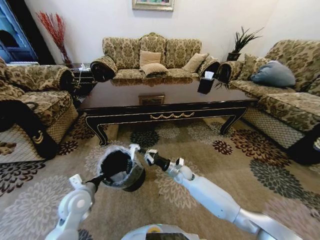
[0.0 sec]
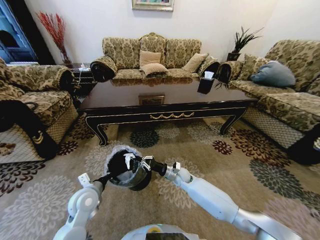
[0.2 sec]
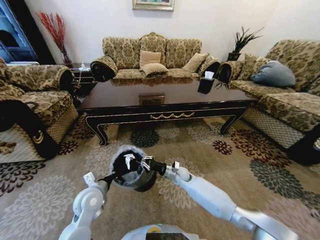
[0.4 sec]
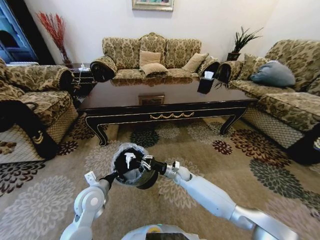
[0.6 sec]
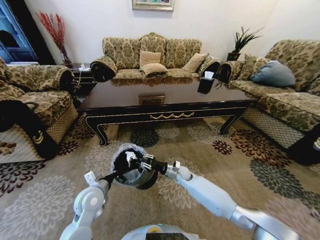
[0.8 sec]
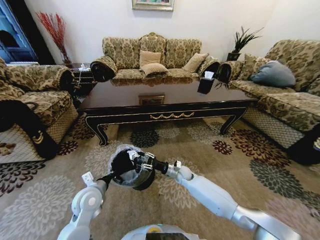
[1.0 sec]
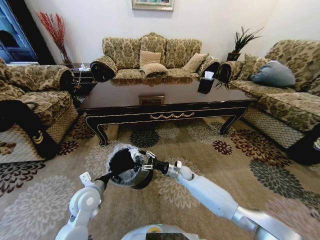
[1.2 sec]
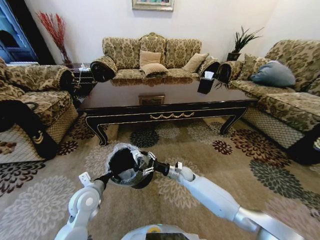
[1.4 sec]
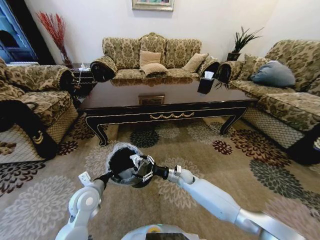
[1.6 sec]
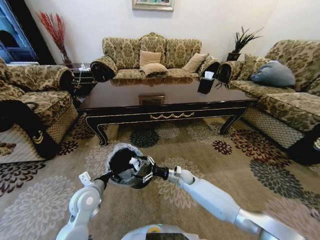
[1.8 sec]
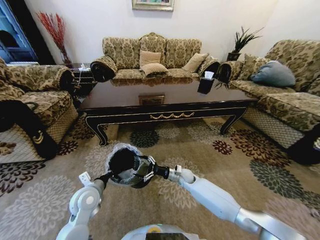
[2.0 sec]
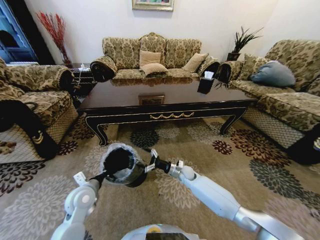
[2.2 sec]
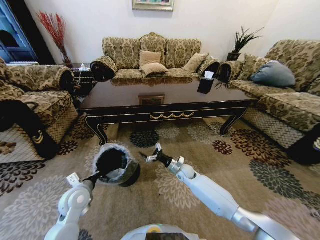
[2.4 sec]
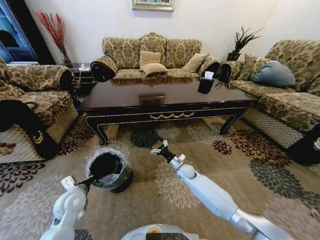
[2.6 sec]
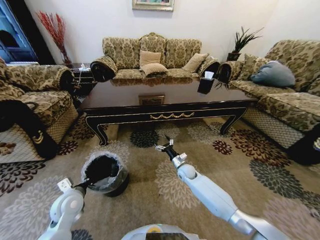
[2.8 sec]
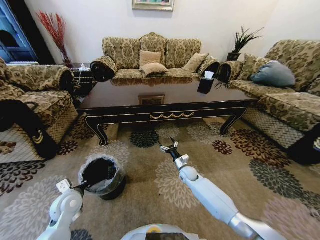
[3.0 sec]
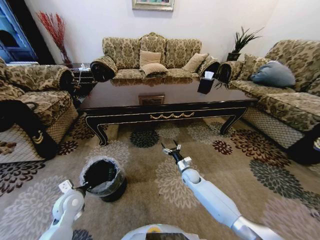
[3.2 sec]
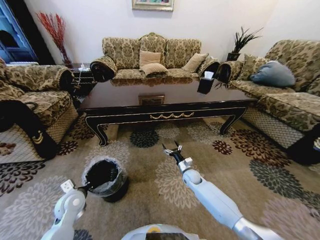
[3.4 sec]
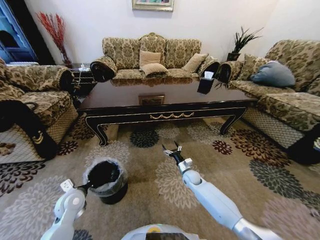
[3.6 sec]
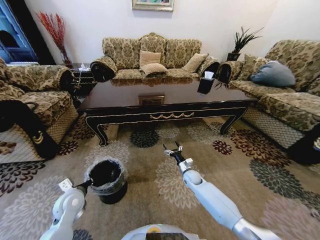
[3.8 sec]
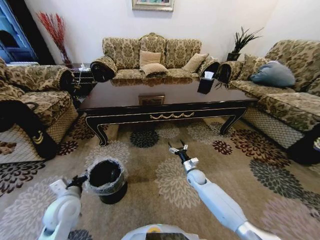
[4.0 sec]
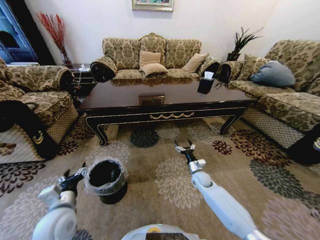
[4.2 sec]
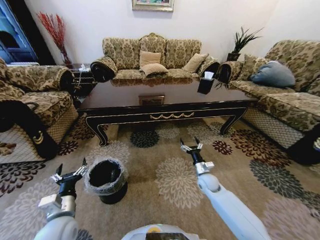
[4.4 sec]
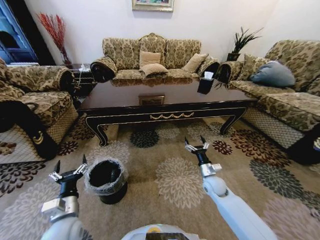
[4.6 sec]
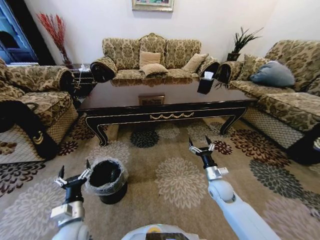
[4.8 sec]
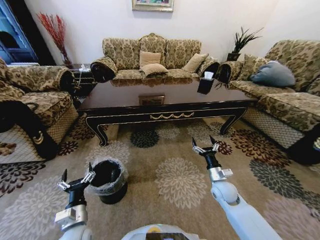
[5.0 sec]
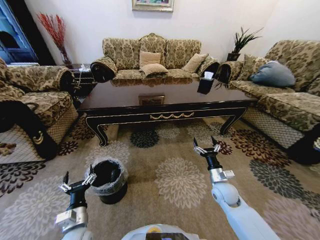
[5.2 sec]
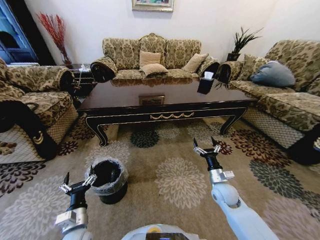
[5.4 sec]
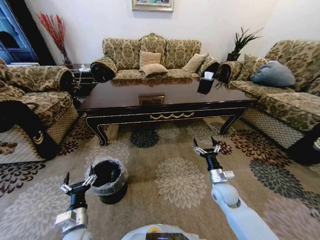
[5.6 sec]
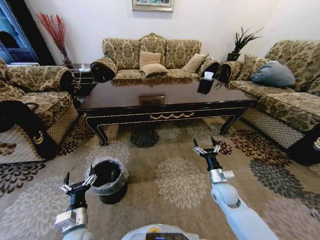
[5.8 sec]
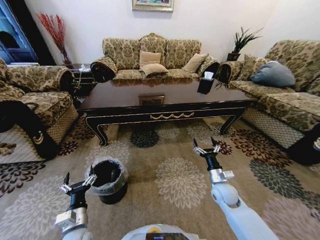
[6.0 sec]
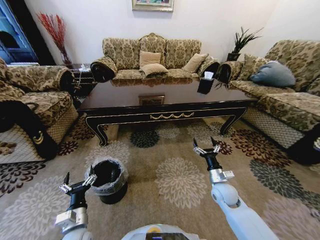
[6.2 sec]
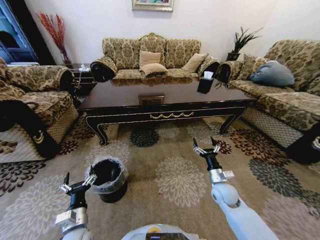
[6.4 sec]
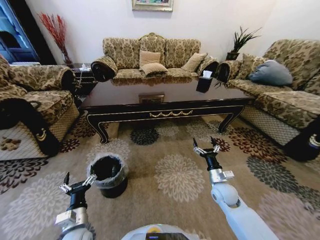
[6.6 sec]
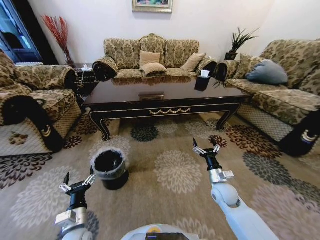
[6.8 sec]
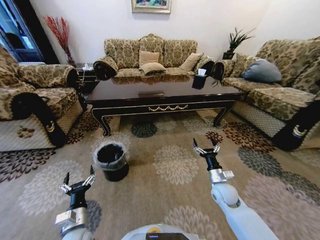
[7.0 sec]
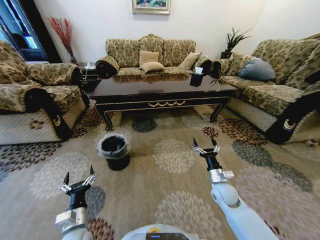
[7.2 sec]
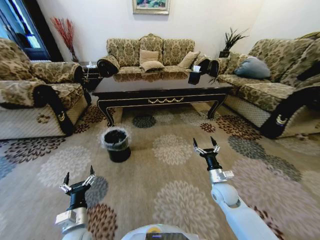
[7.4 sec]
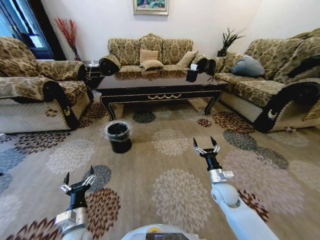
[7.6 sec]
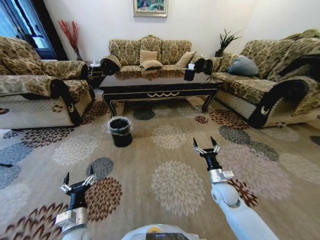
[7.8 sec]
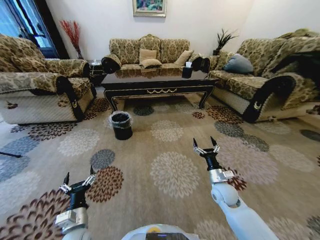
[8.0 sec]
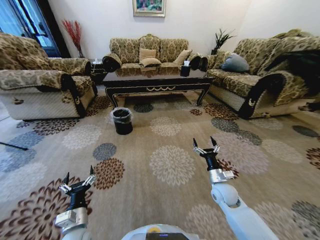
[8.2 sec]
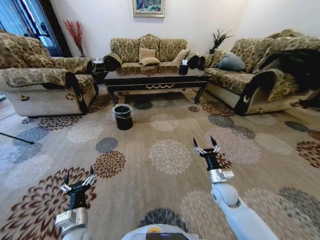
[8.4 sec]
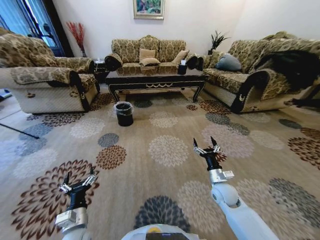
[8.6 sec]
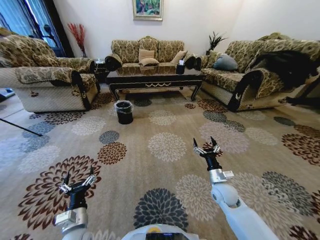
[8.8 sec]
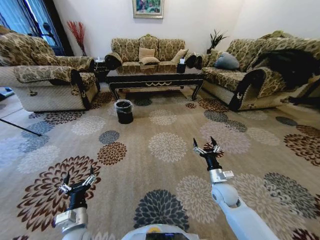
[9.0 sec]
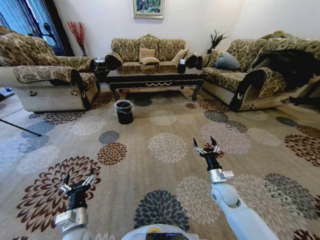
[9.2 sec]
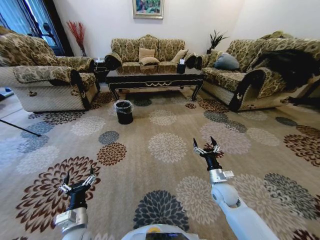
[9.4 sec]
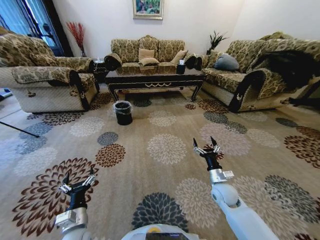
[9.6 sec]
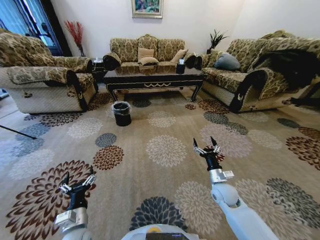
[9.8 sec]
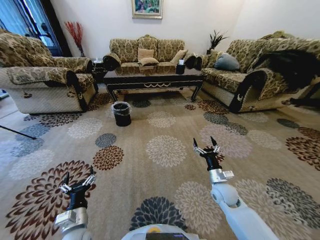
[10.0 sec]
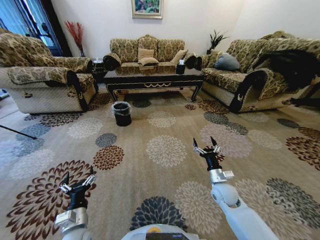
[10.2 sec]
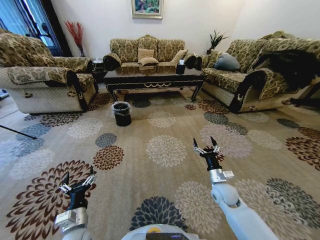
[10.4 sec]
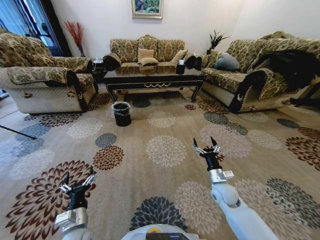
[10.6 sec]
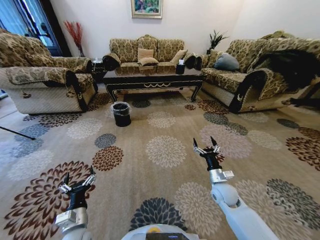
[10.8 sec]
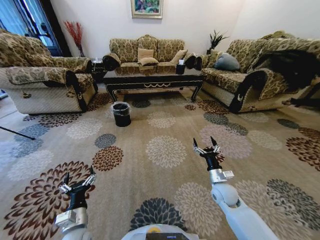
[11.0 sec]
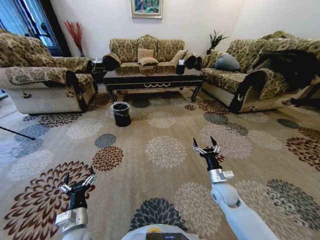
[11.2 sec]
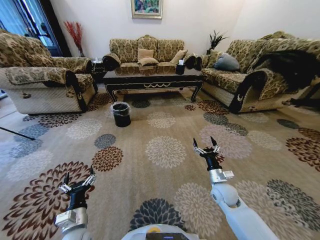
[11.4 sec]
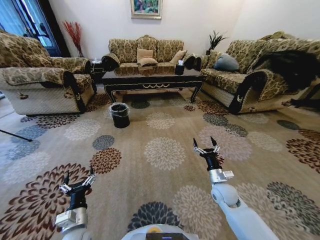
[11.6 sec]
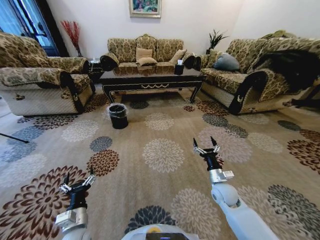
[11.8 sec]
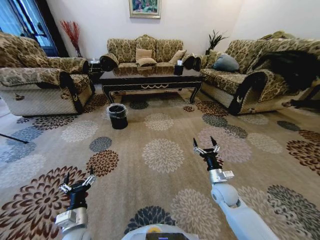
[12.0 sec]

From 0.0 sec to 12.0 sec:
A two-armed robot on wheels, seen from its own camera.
Task of the whole recording: Move to the front of the table and pick up the trash from the floor, then place it into the trash bin.
From 0.0 sec to 1.6 sec: The right gripper opens.
From 1.6 sec to 3.0 sec: The left gripper goes some 10 cm to the left.
From 3.0 sec to 4.4 sec: The right gripper is displaced to the right and backward by approximately 10 cm; the left gripper is displaced backward by some 10 cm, and opens its fingers.
From 4.4 sec to 6.0 sec: The right gripper heads backward and upward, covering about 10 cm, while the left gripper is displaced downward by about 5 cm.
From 9.0 sec to 10.4 sec: Neither gripper changes place.

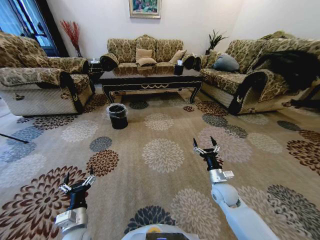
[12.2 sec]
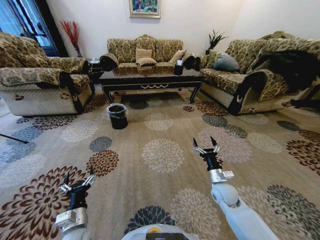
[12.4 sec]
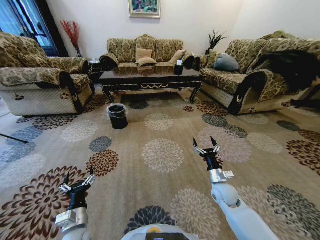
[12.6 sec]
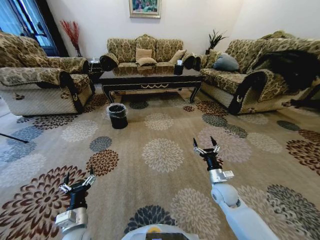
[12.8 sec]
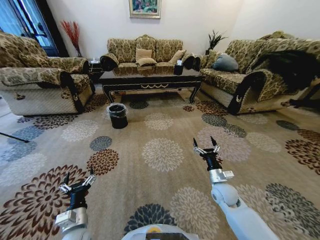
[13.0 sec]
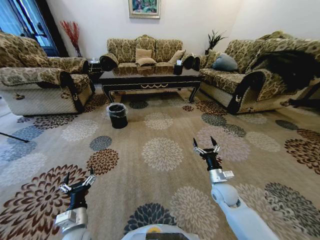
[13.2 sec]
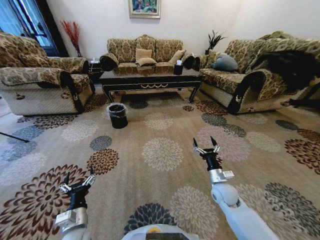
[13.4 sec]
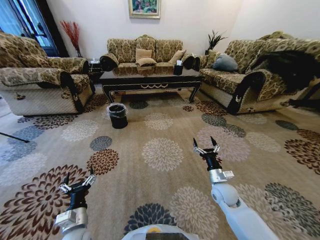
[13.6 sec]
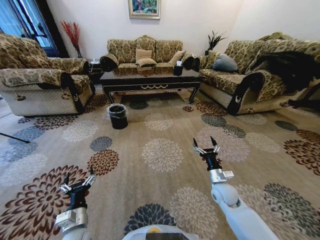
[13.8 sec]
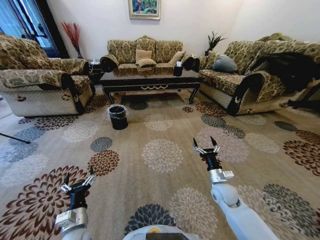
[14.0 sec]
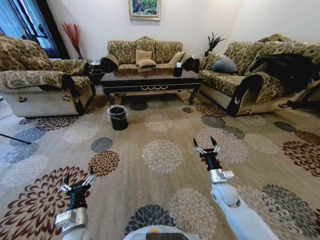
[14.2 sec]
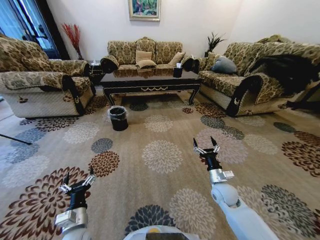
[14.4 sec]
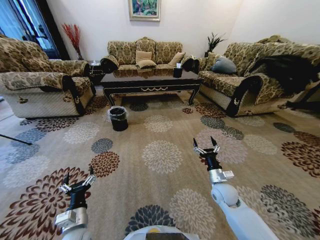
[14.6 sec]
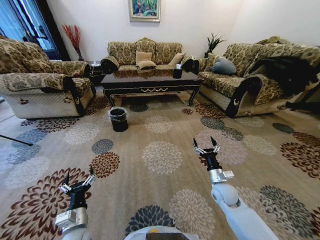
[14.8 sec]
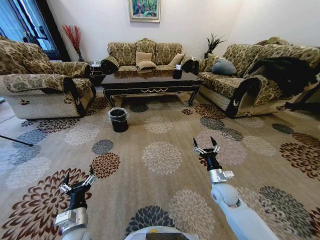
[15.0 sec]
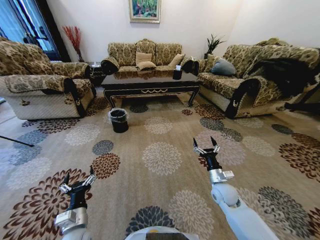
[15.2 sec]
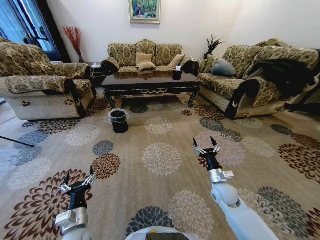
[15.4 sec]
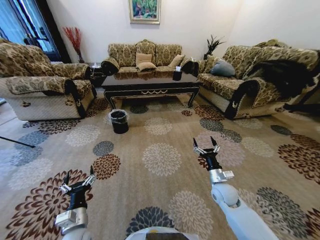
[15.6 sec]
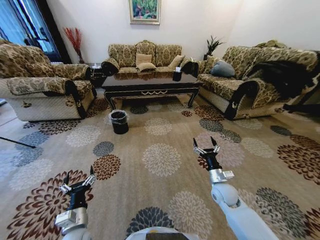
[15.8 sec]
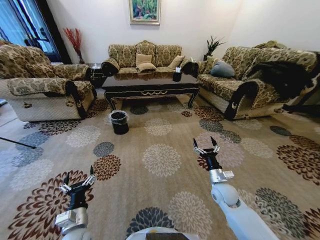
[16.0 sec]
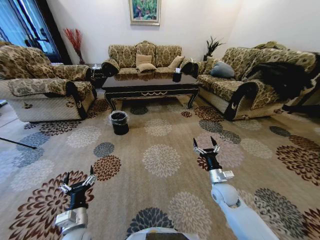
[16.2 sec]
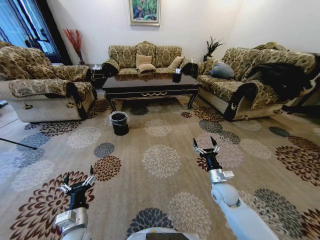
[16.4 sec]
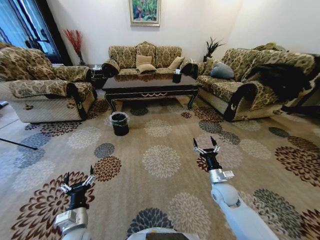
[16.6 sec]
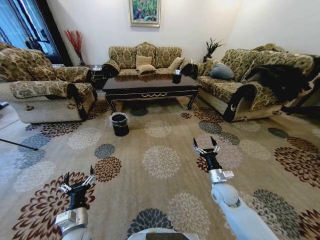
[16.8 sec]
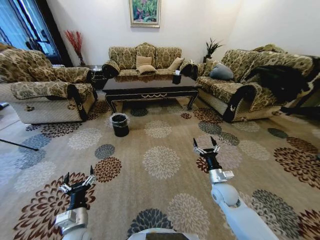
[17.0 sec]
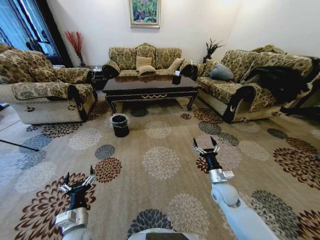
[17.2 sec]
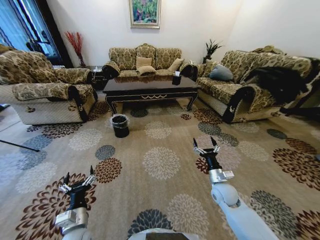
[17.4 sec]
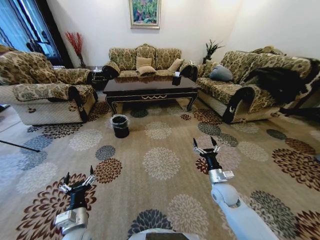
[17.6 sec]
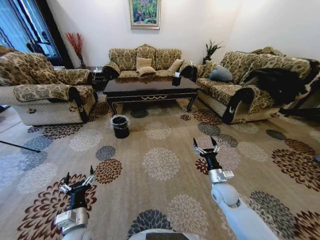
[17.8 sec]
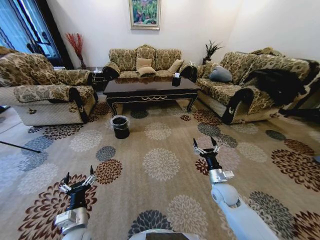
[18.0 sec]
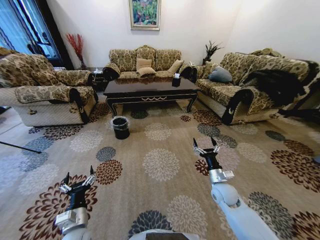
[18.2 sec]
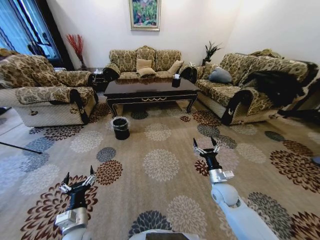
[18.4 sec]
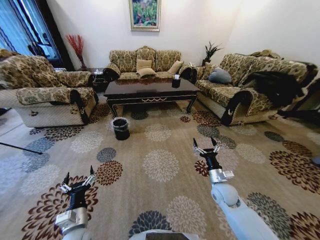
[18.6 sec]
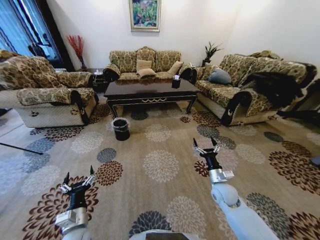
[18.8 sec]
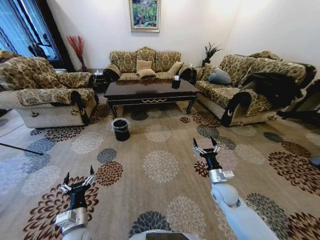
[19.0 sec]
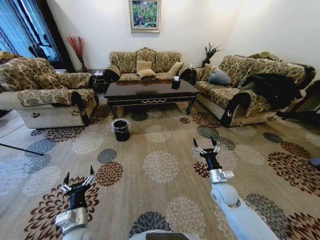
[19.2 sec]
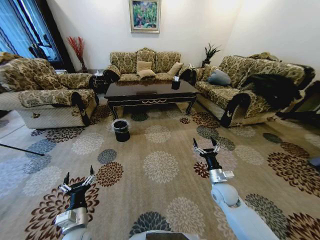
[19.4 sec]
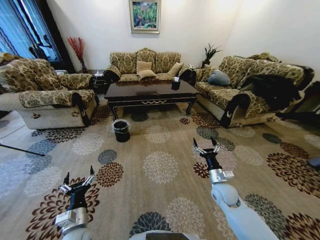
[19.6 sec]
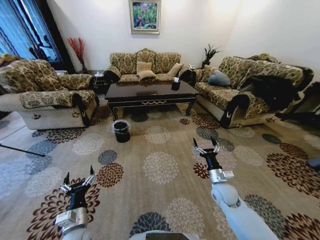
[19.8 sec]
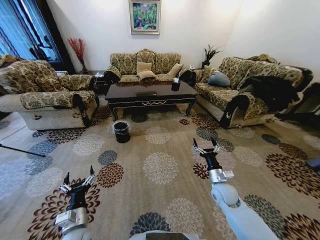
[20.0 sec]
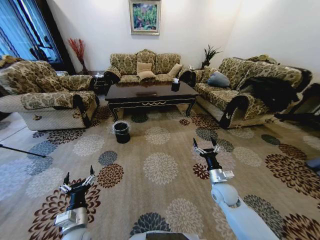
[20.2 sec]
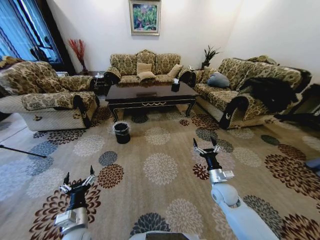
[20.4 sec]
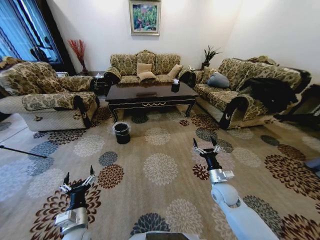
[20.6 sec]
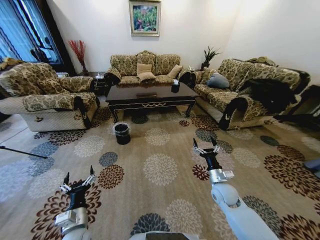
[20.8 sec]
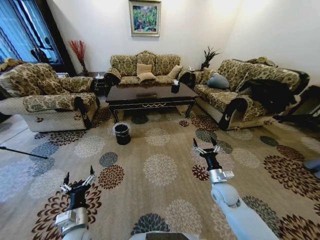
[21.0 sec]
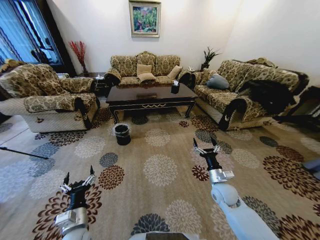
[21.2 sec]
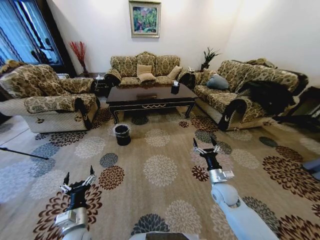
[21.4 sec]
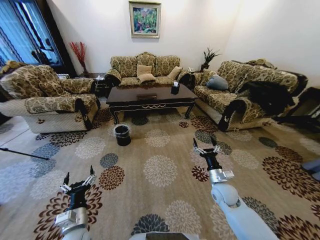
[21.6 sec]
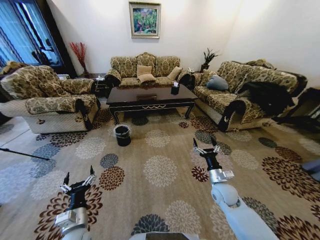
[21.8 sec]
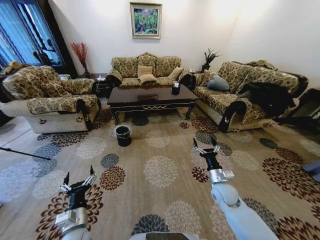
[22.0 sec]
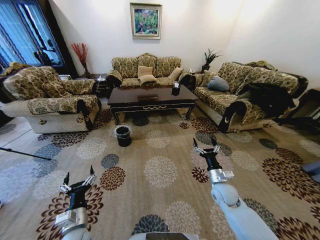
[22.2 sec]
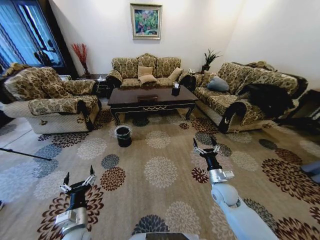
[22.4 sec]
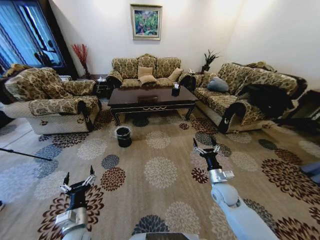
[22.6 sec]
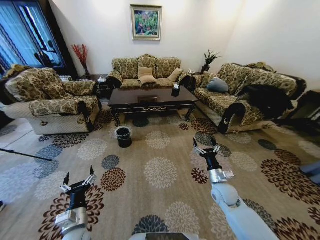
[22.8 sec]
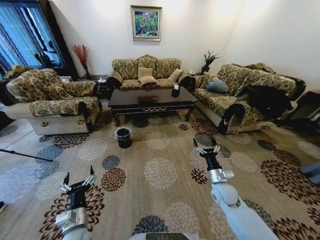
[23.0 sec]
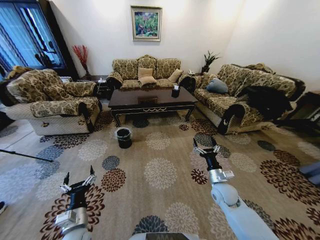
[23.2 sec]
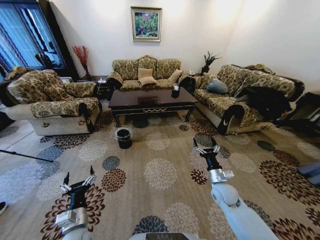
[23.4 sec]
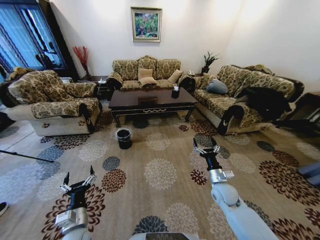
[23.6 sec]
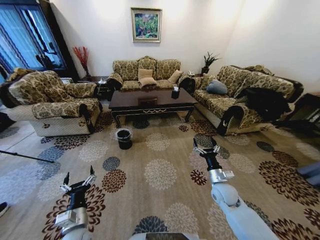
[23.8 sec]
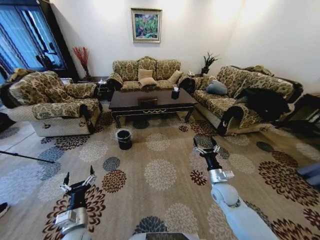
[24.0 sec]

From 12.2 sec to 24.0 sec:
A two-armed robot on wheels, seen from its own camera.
Task of the whole recording: Move to the front of the table and pick up the trash from the floor, then place it into the trash bin.
From 12.2 sec to 13.6 sec: Both grippers stay put.
